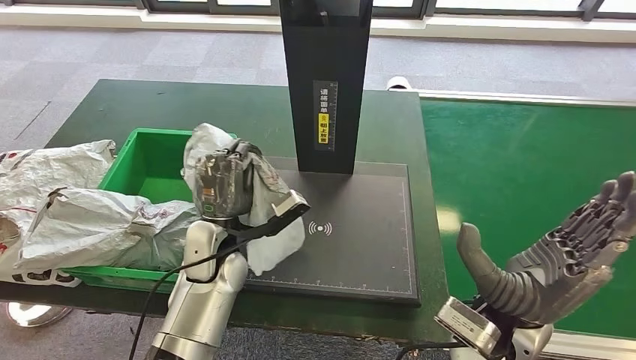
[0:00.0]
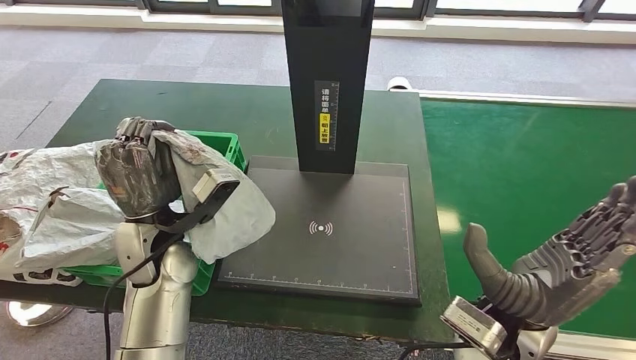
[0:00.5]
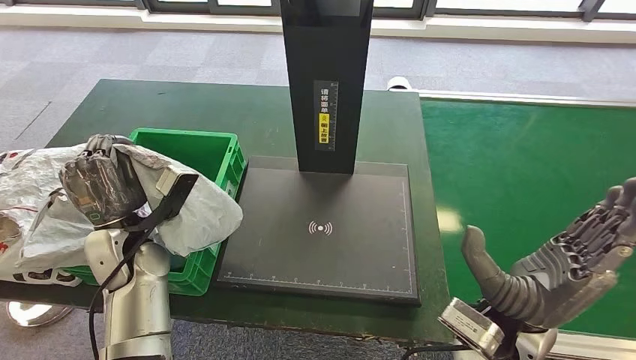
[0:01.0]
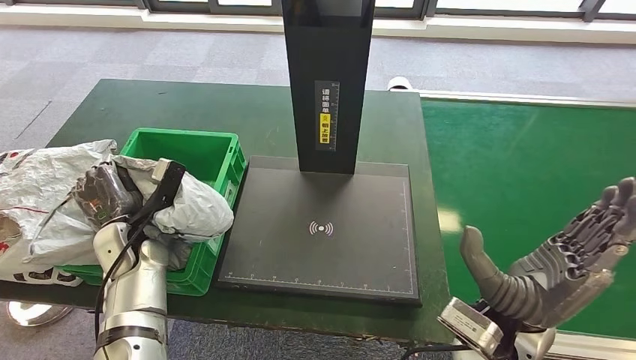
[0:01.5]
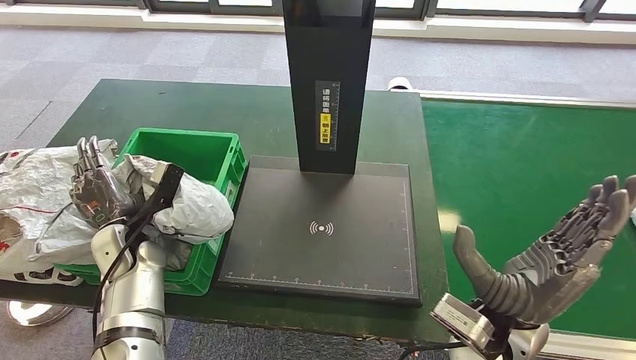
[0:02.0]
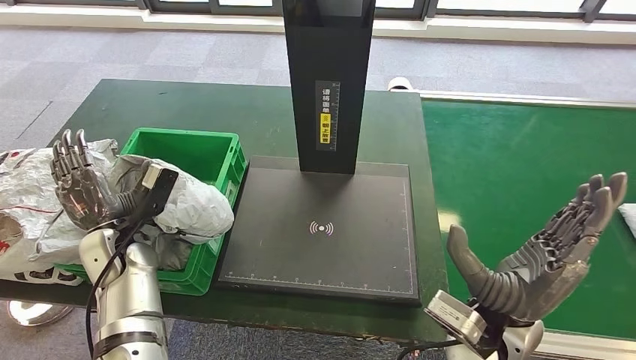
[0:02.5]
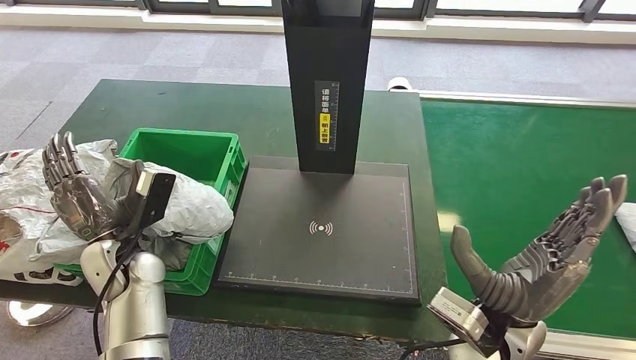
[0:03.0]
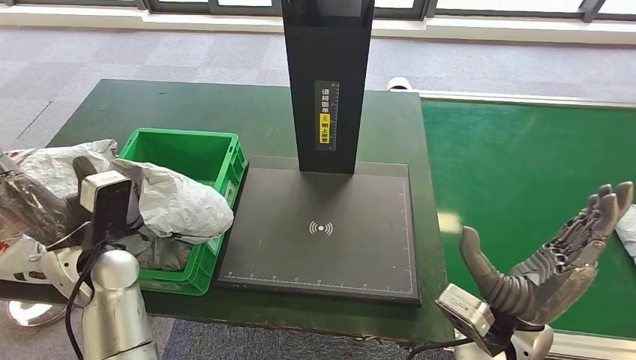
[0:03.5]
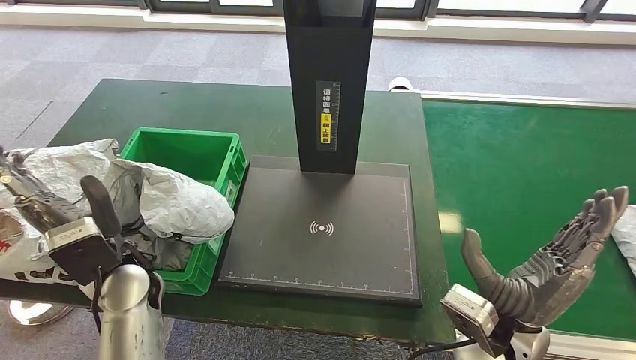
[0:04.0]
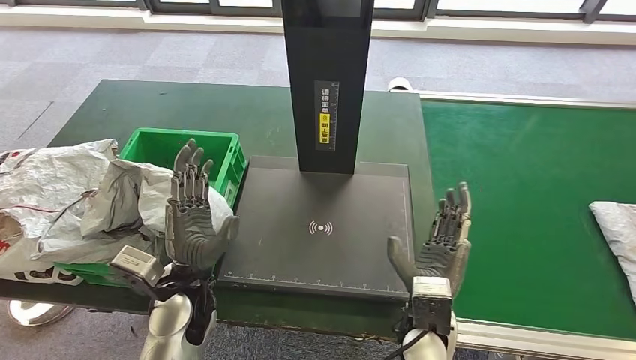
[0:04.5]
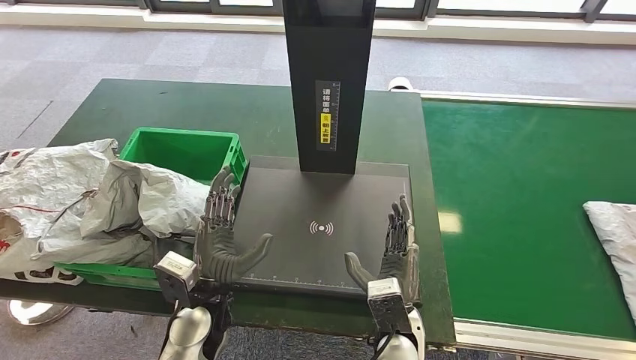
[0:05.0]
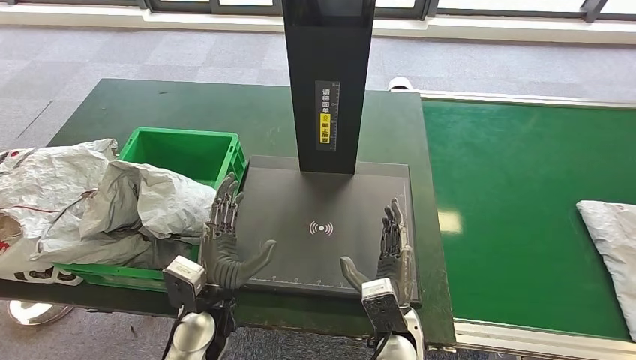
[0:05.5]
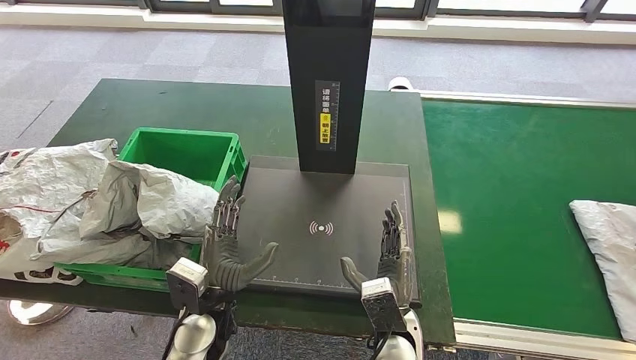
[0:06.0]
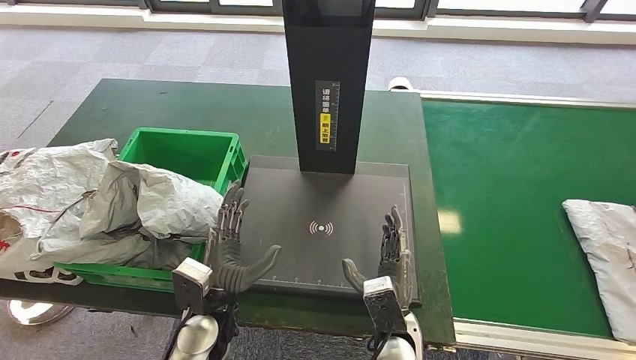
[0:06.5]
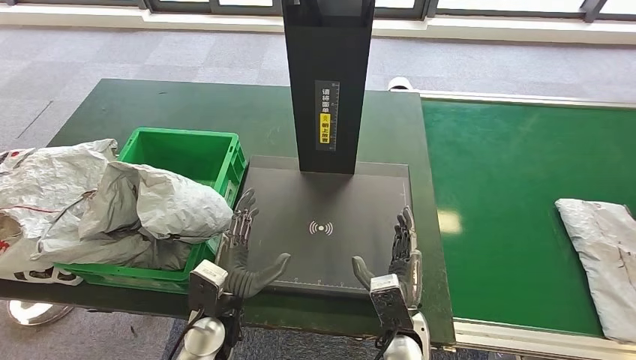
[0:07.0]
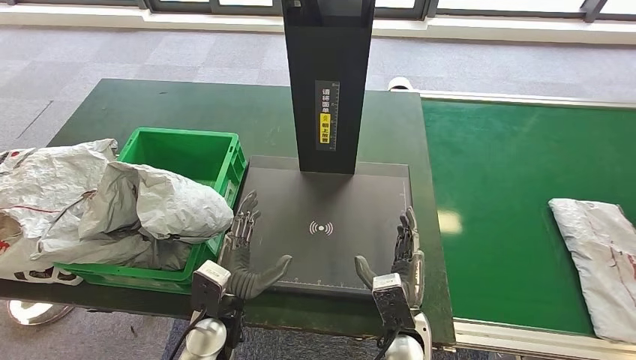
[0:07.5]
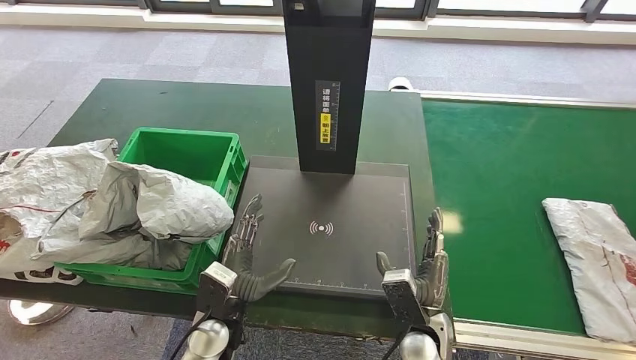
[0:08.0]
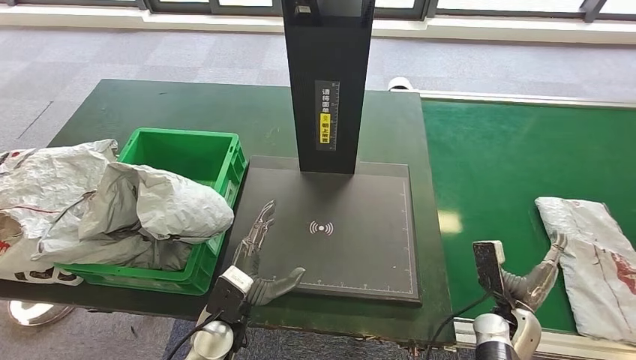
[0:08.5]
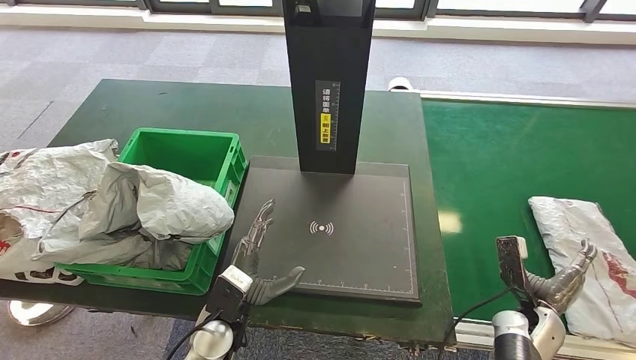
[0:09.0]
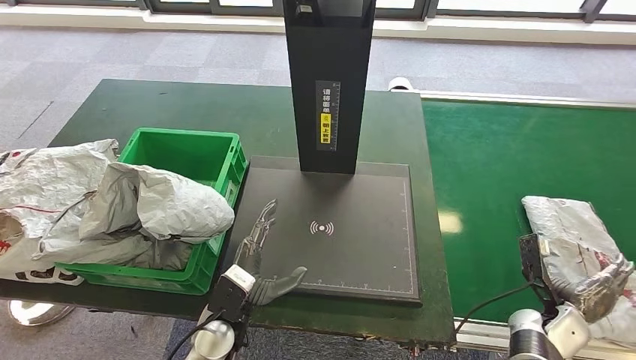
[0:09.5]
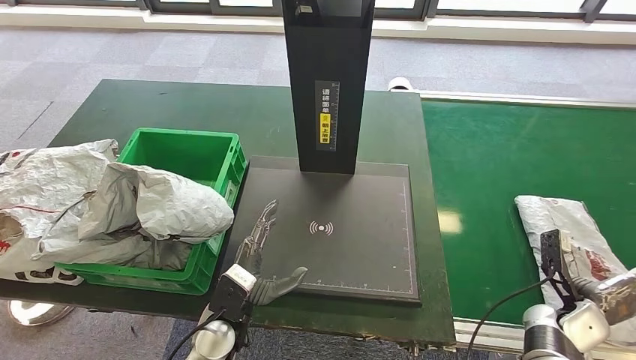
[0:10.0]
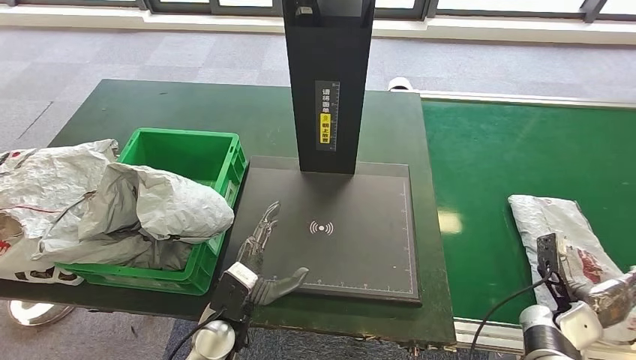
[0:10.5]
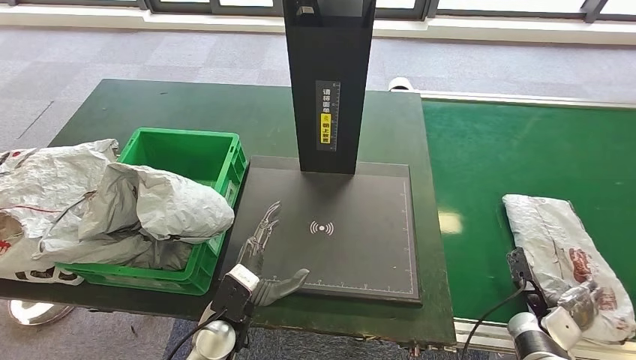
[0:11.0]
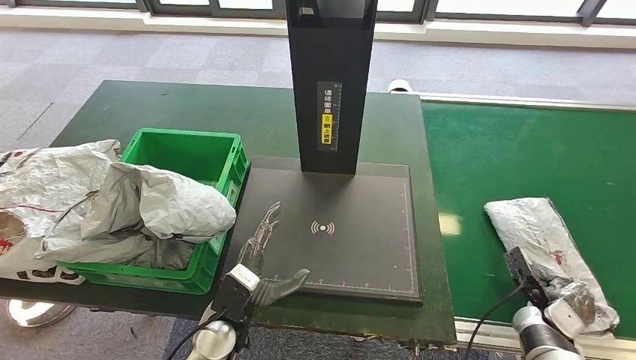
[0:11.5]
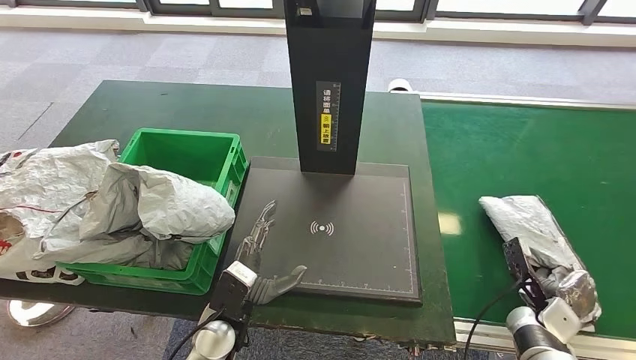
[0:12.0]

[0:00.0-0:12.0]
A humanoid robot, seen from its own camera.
Step, 0:01.0 to 0:03.0: Place the parcel into the delivery box.
0:02.0 to 0:04.0: The left hand shifts about 10 cm upward, backward and to the right.
0:04.0 to 0:06.0: The right hand moves to the left and downward, about 15 cm; the left hand heads to the right and downward, covering about 15 cm.
0:06.0 to 0:08.0: The right hand moves to the right, approximately 5 cm.
0:08.0 to 0:10.0: The right hand moves to the right, approximately 25 cm.

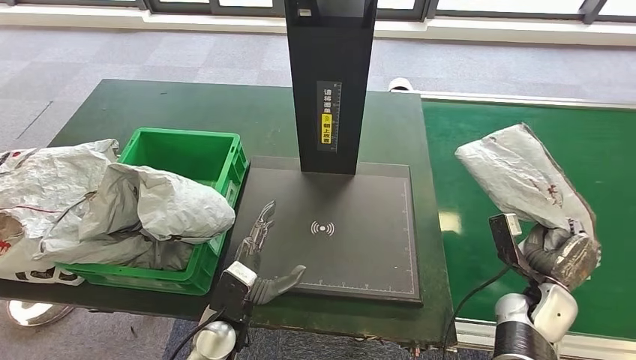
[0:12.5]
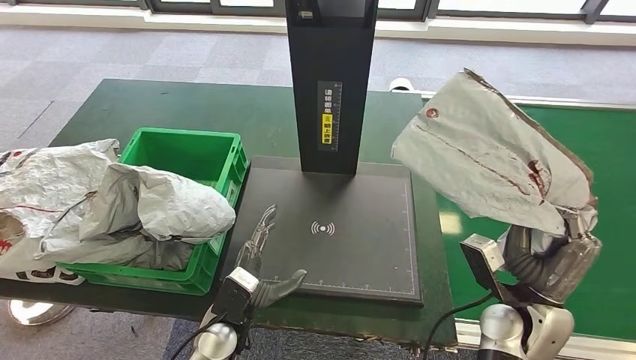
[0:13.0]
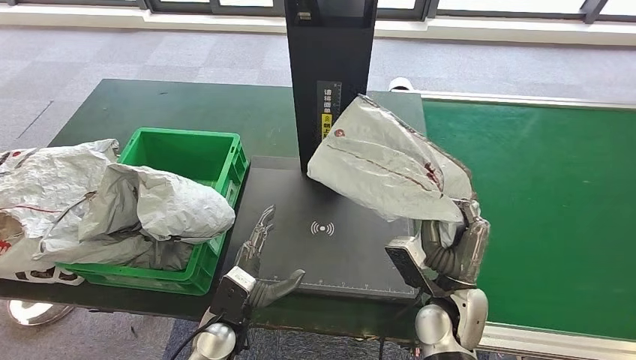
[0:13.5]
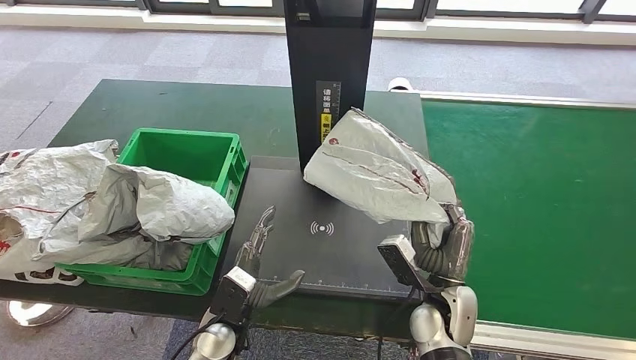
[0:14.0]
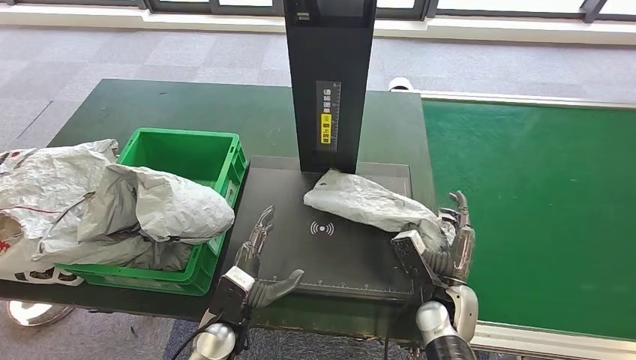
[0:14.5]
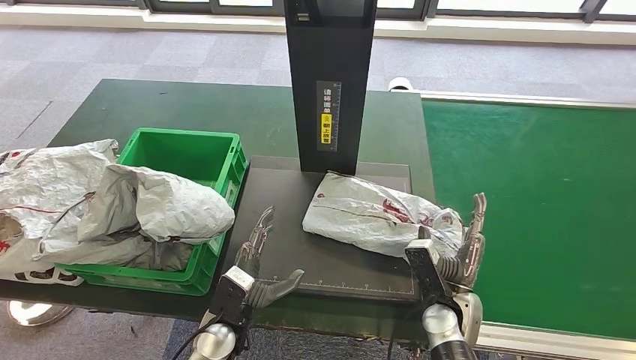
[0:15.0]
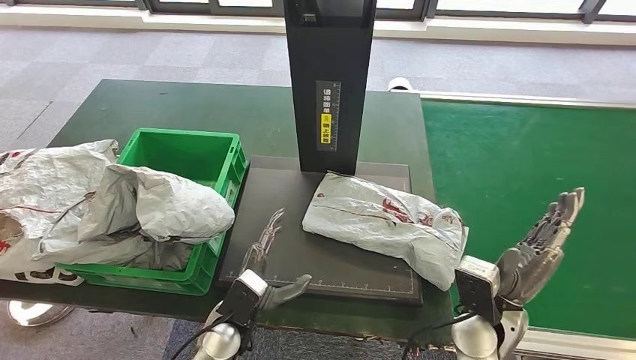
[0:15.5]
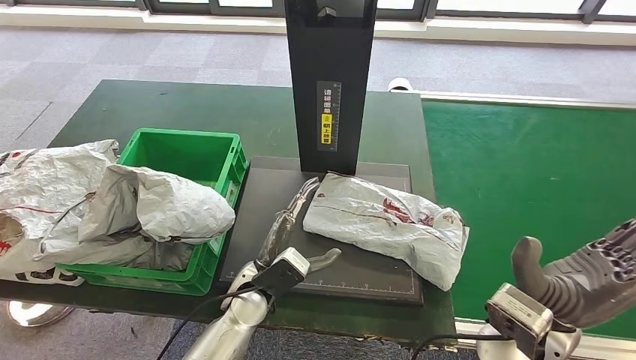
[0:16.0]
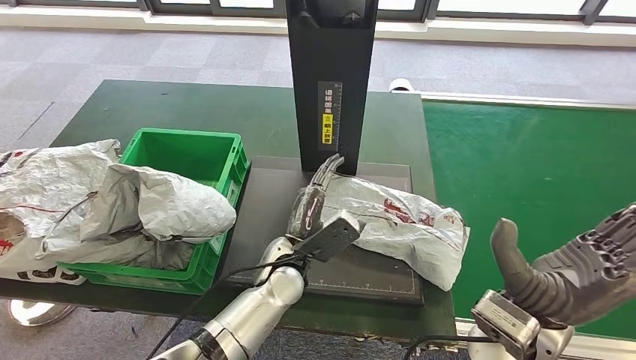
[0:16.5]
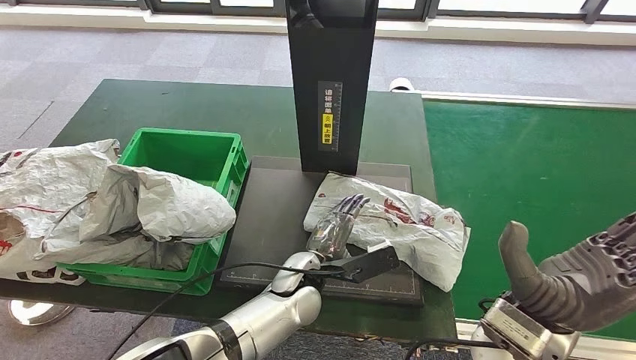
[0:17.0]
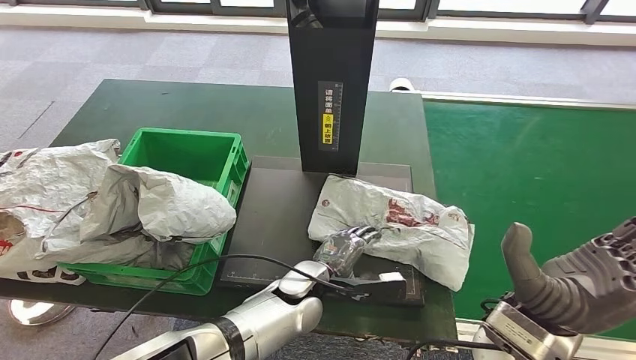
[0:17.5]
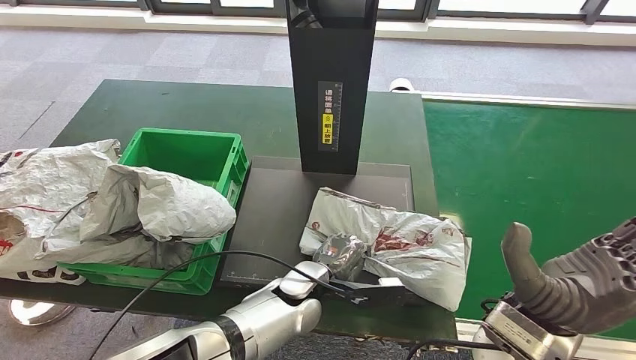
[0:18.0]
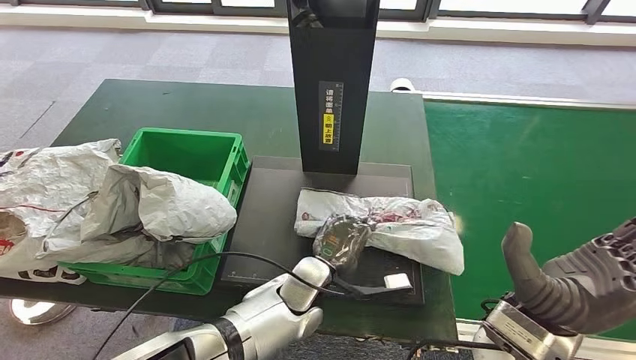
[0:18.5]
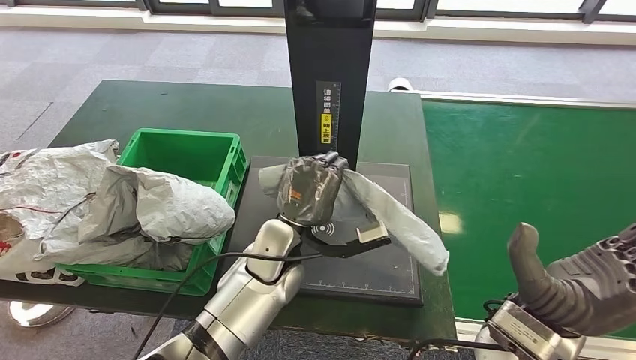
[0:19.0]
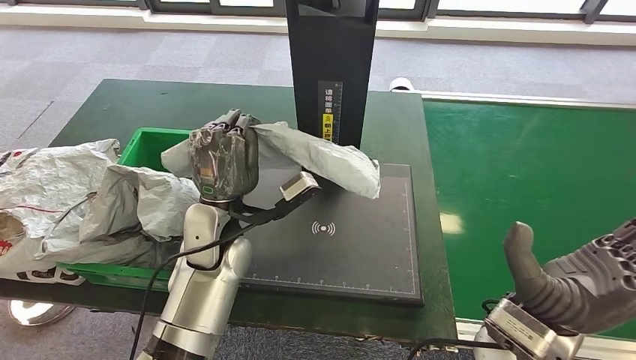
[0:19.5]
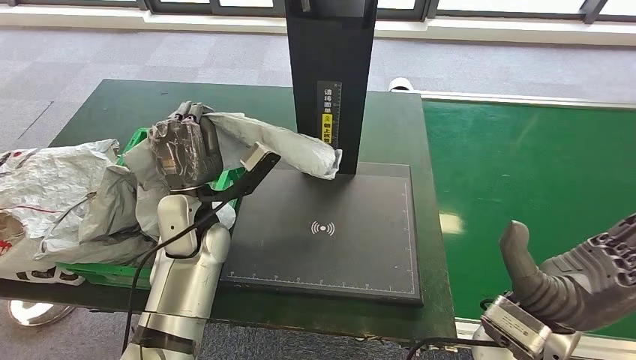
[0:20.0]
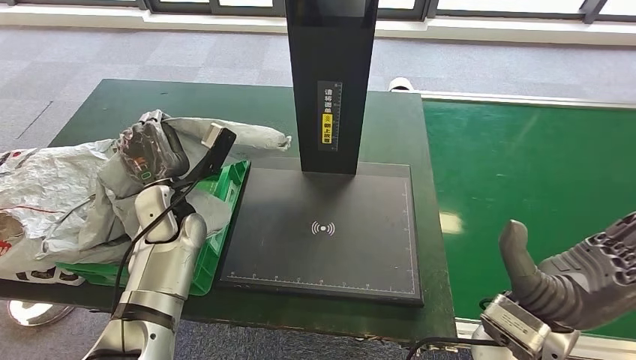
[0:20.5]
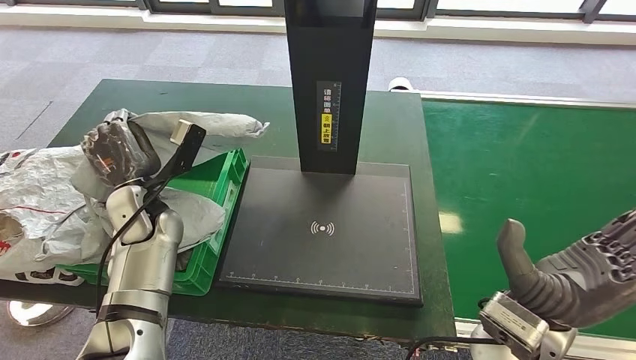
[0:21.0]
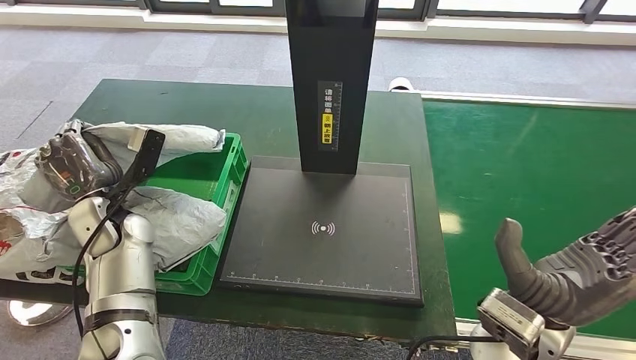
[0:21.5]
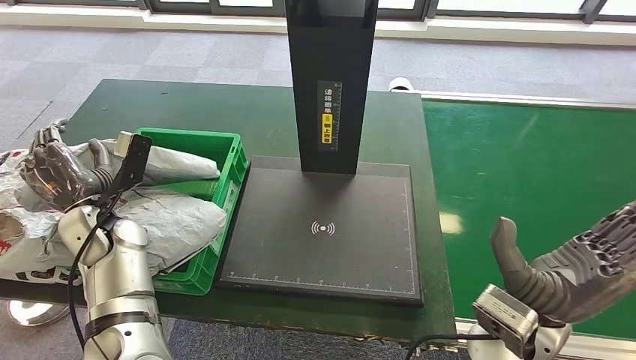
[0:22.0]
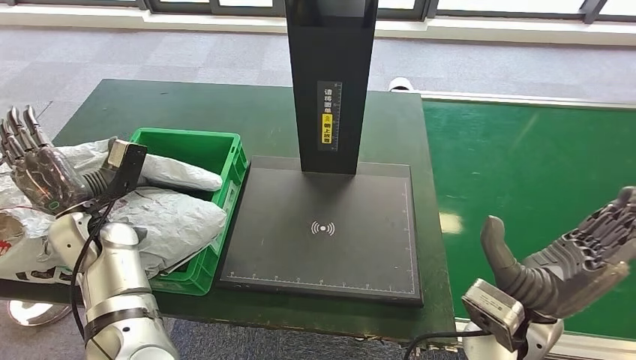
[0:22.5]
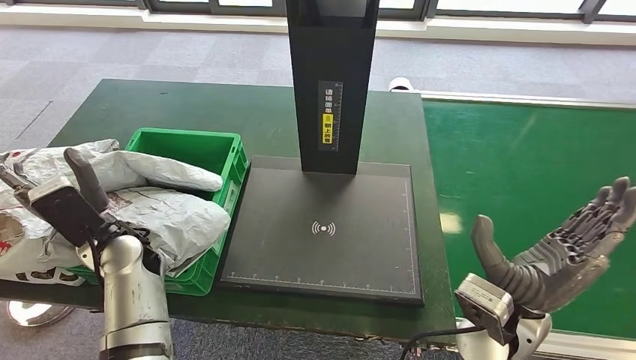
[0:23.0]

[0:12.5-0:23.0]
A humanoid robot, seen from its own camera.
Step, 0:13.0 to 0:16.0: Place the parcel onto the inbound machine.
Step, 0:16.5 to 0:19.5: Pick up the parcel from the inbound machine.
Step, 0:20.0 to 0:23.0: Place the parcel into the delivery box.
0:12.5 to 0:14.5: The right hand shifts about 15 cm to the left.
0:16.5 to 0:19.0: The left hand moves some 5 cm.
0:21.0 to 0:23.0: The left hand moves backward, about 5 cm.
